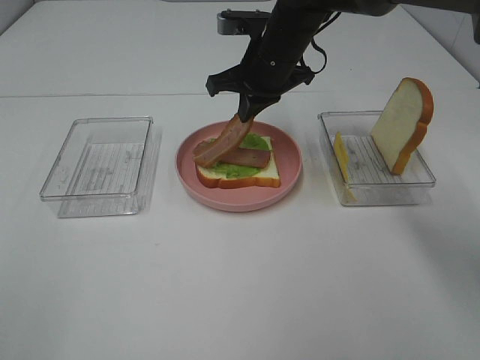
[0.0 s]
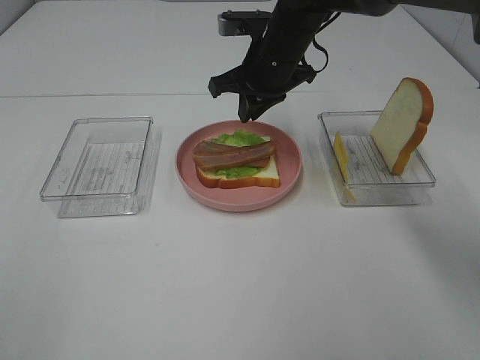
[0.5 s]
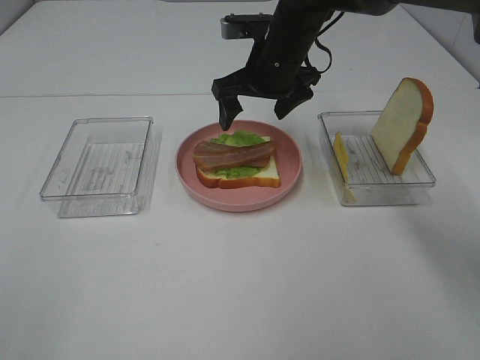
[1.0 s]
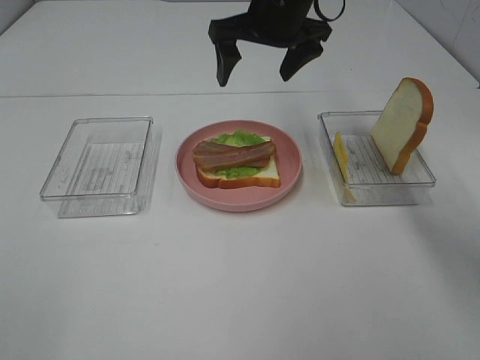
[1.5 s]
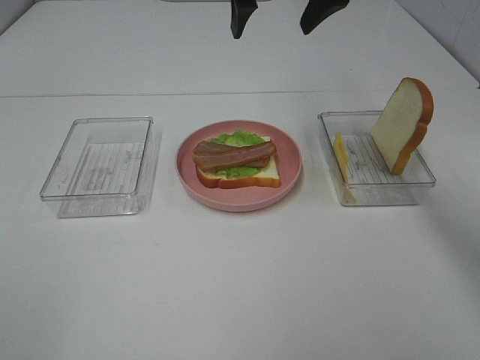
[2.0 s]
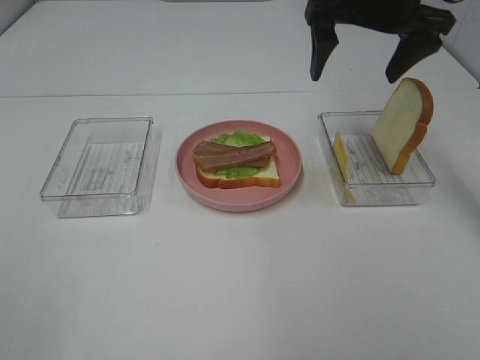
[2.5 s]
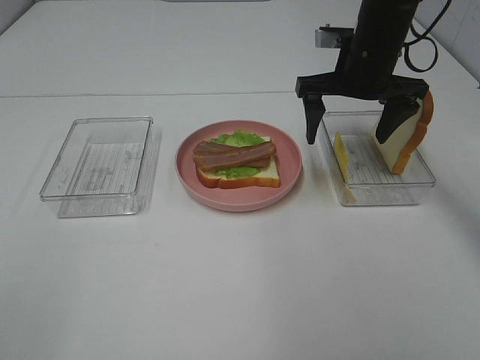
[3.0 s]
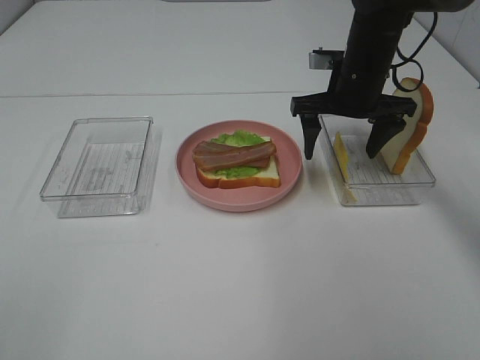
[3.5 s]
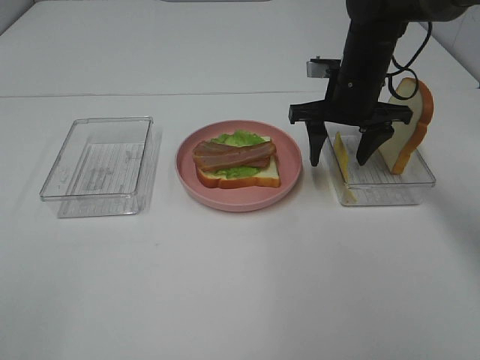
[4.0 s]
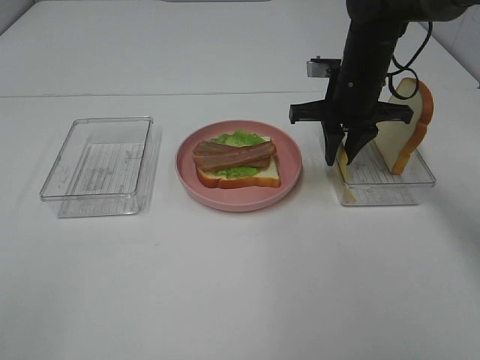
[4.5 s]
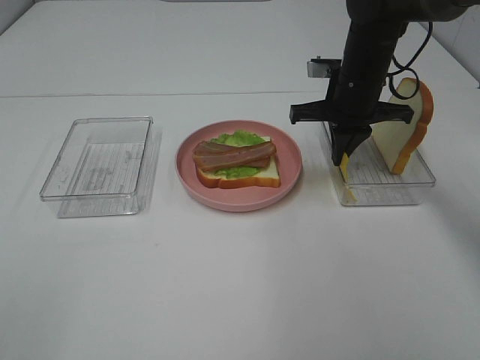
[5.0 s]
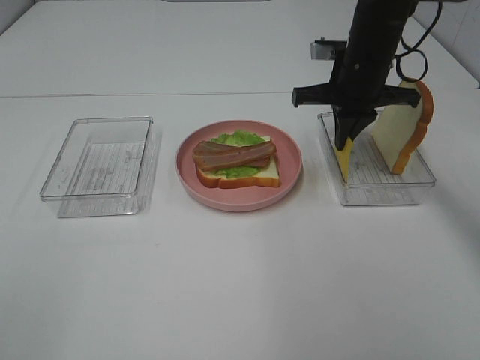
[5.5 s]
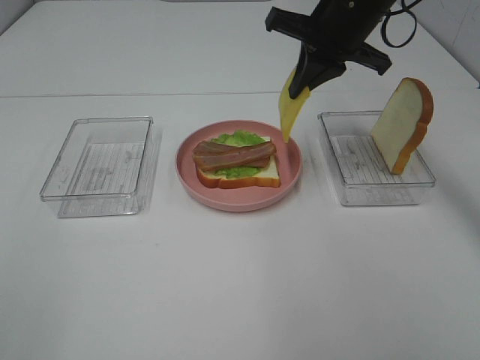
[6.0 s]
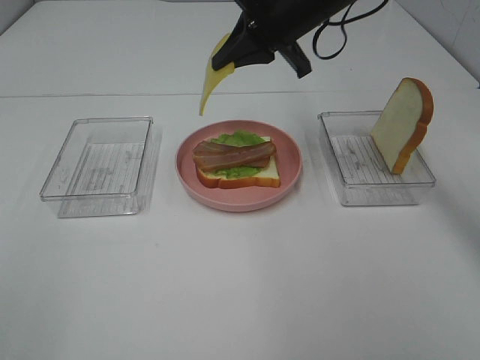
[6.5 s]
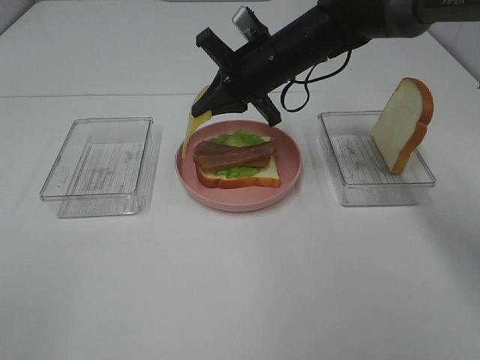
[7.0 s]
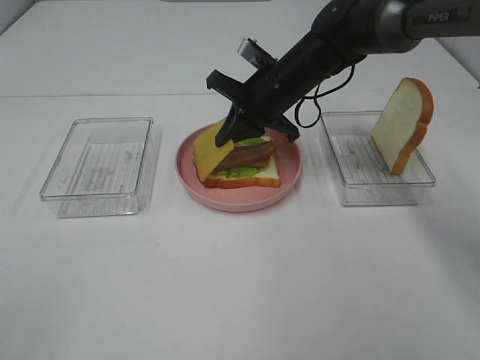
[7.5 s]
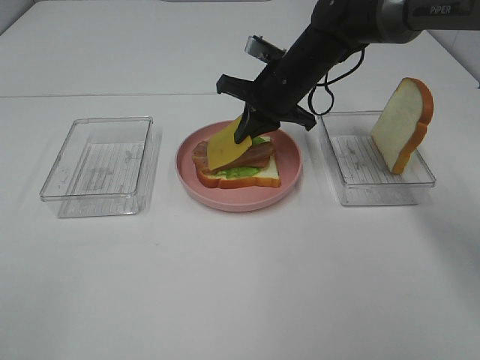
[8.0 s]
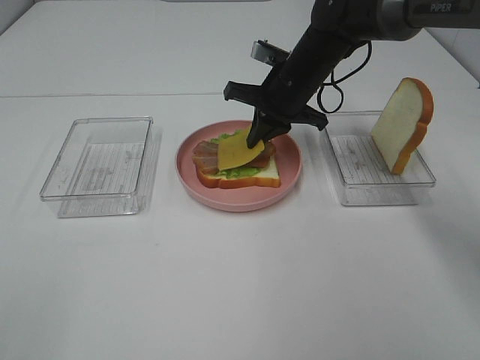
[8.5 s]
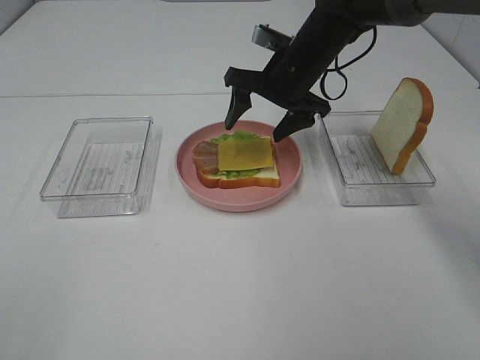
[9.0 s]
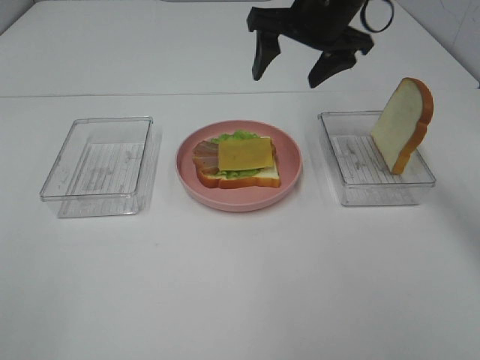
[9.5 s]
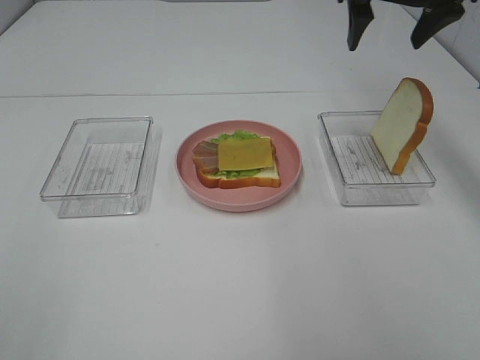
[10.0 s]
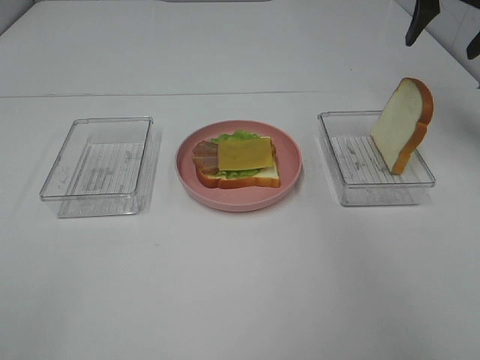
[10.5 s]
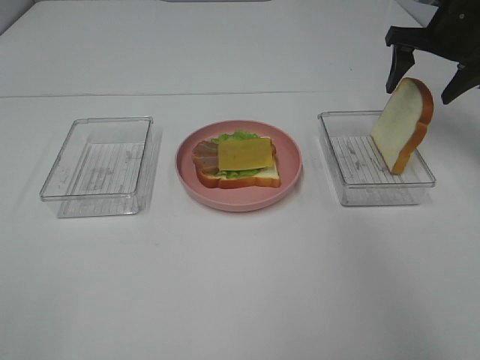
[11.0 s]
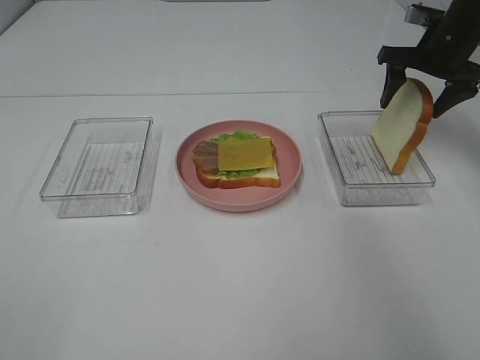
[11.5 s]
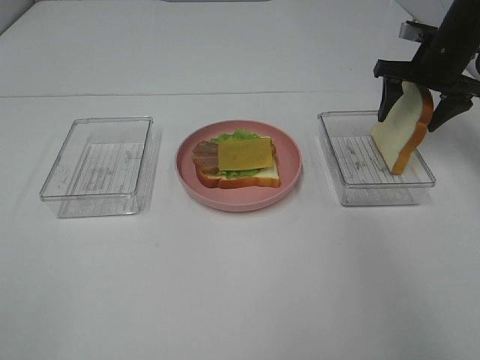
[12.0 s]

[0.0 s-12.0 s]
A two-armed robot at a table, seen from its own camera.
Task of the whole recording: Make sandwiches.
Step, 1.0 to 5.0 s: Right hand:grab the cheese slice.
Step, 5.5 to 9.0 s: Right hand:place the cheese slice on top of the bacon.
0.0 to 2.0 s: The right gripper shifts approximately 15 cm upward, and opens.
2.0 to 4.0 s: The right gripper moves downward and to the right, approximately 20 cm.
4.0 to 6.0 s: The right gripper heads upward, covering approximately 10 cm, and closes.
6.0 to 8.0 s: The right gripper travels downward and to the left by roughly 10 cm.
8.0 to 10.0 s: The right gripper moves upward and to the right, some 20 cm, and opens.
10.0 to 12.0 s: The right gripper is displaced downward and to the right by roughly 15 cm.

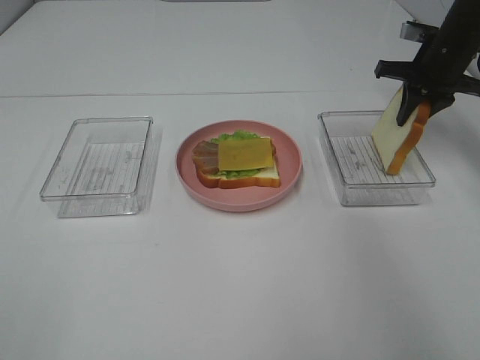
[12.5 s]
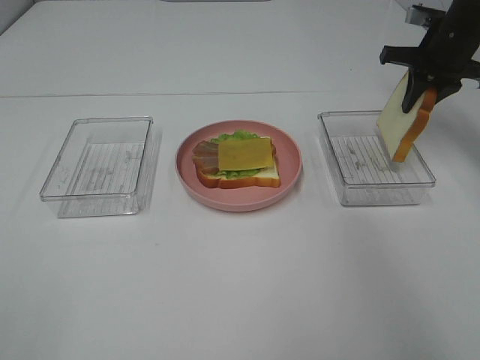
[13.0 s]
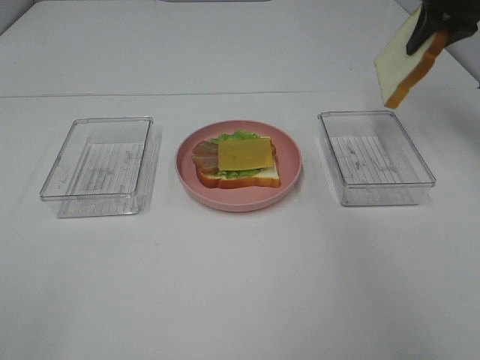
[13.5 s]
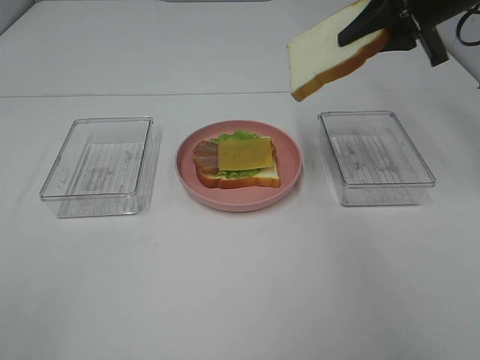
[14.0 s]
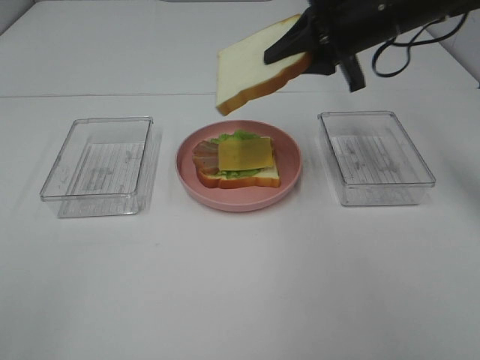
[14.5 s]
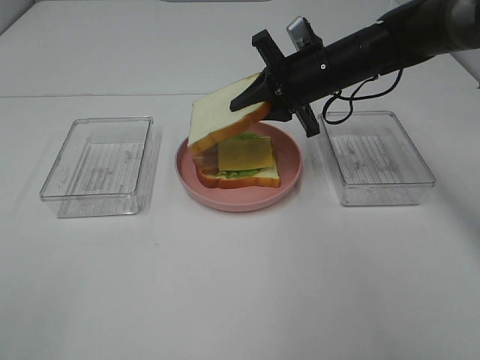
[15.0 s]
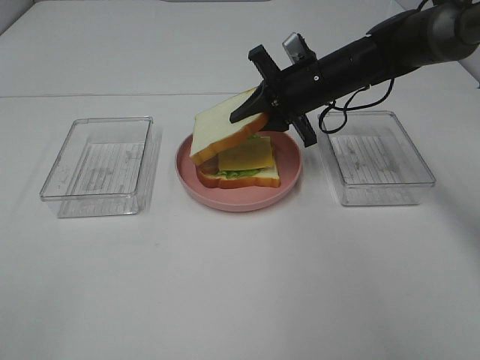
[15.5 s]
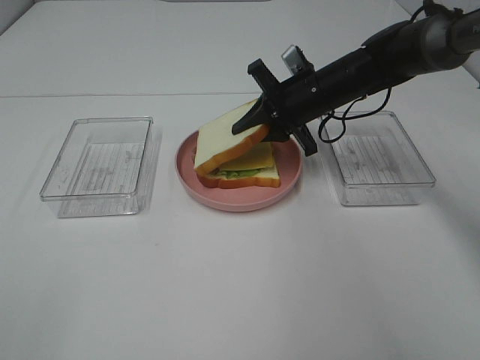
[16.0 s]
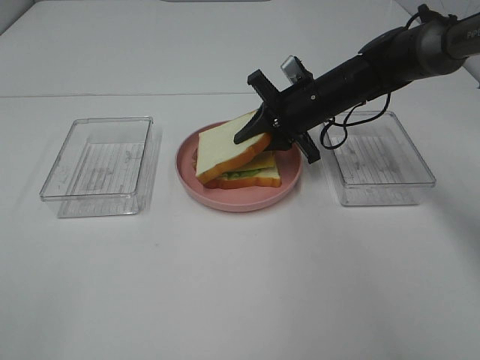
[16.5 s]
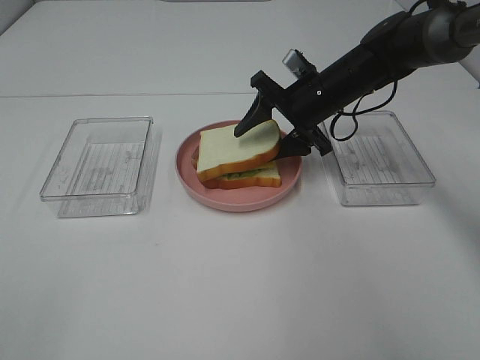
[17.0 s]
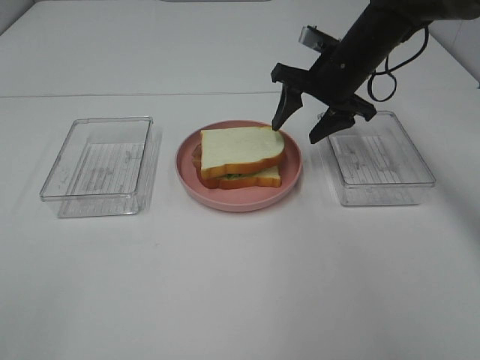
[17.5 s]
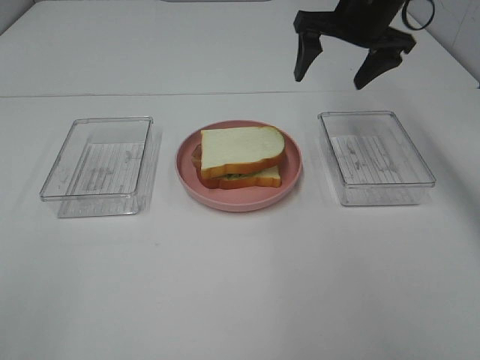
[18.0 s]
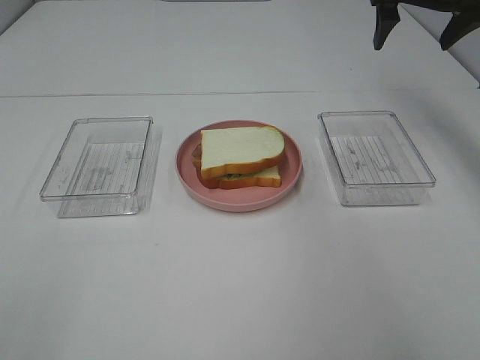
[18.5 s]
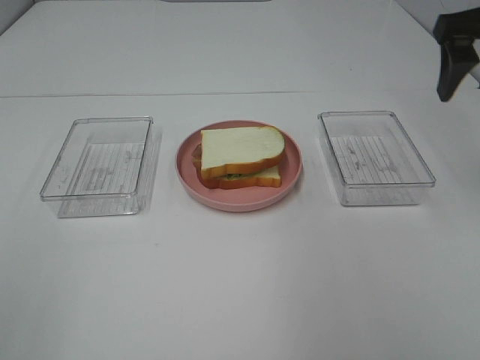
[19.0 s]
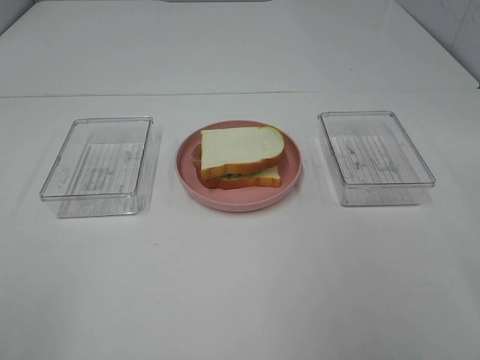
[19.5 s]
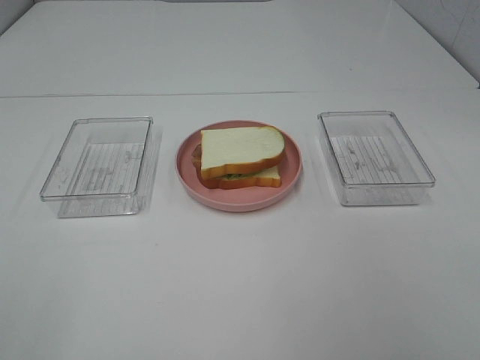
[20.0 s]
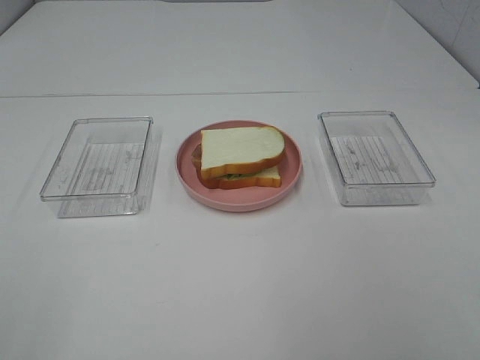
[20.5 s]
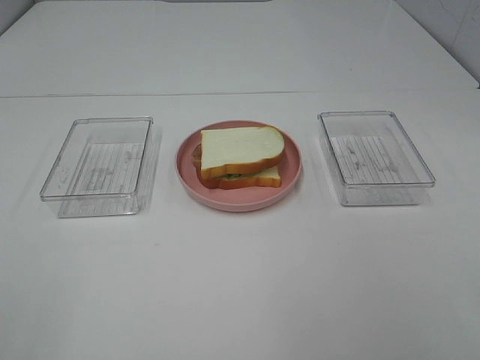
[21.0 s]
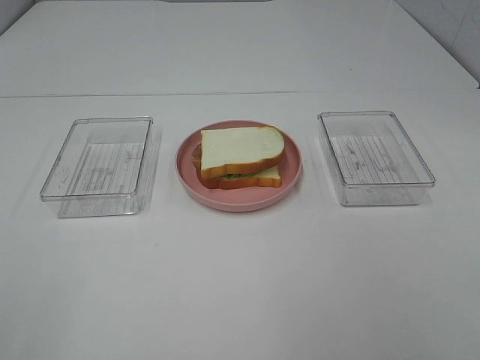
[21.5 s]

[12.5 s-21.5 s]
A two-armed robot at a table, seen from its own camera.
Task of the whole recording: Make sandwiches.
Step, 13.0 to 17.0 s: Right hand:place the bread slice on the cheese slice.
12.5 to 14.5 s: The right gripper shifts about 15 cm to the left and backward.
14.5 to 17.0 s: The right gripper shifts some 10 cm downward, and opens up.
17.0 to 19.5 s: The right gripper heads backward, upward and to the right, covering roughly 40 cm.
